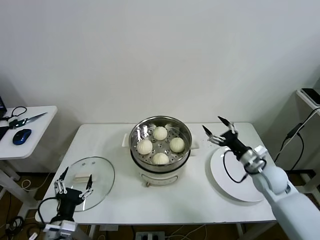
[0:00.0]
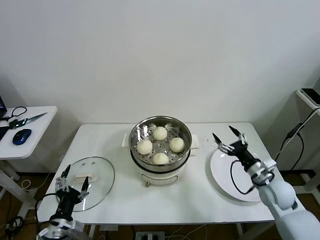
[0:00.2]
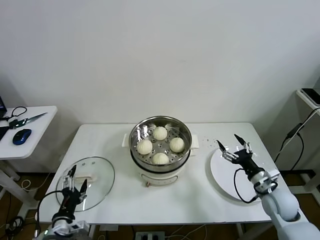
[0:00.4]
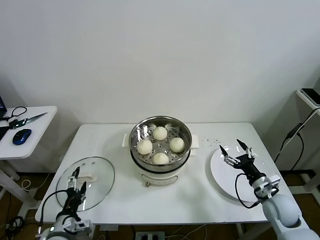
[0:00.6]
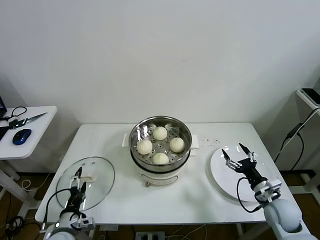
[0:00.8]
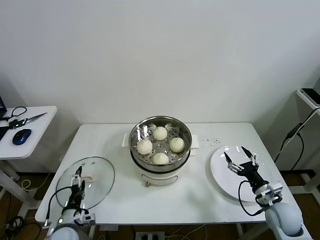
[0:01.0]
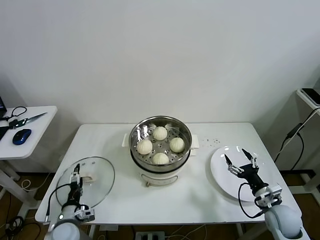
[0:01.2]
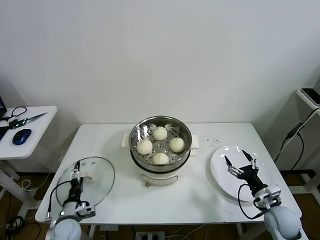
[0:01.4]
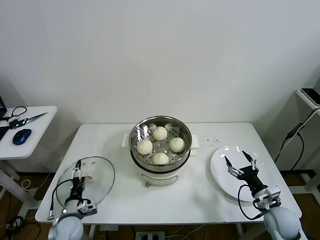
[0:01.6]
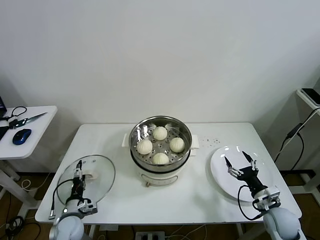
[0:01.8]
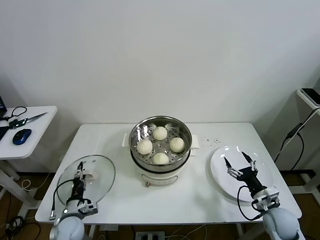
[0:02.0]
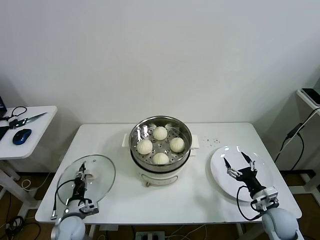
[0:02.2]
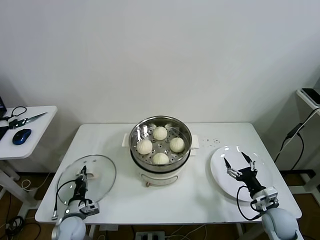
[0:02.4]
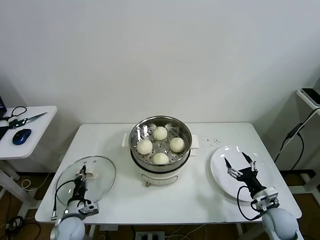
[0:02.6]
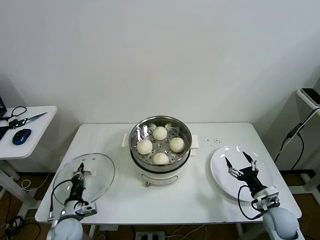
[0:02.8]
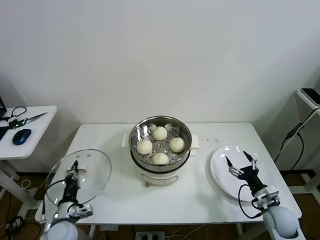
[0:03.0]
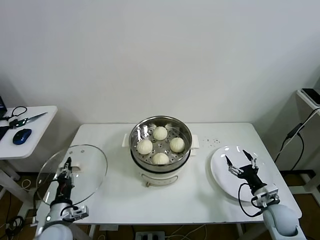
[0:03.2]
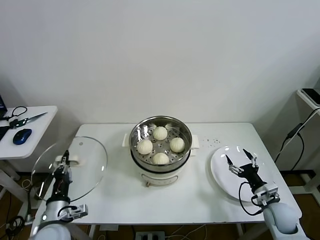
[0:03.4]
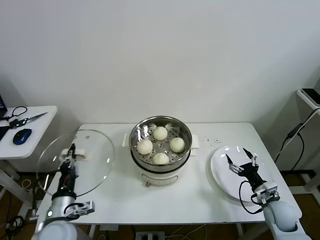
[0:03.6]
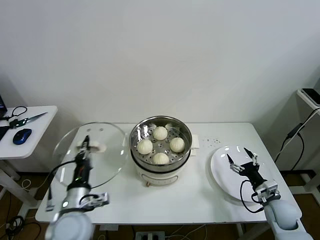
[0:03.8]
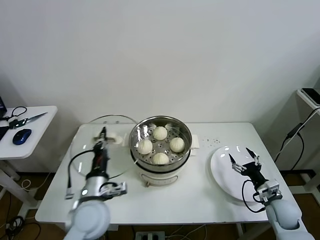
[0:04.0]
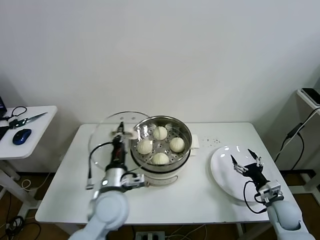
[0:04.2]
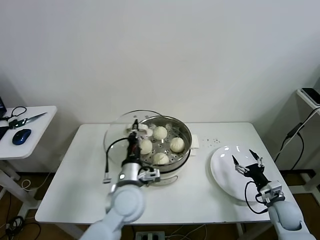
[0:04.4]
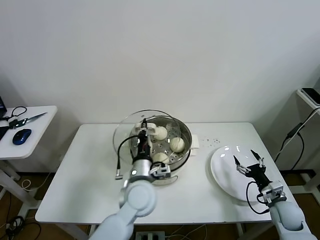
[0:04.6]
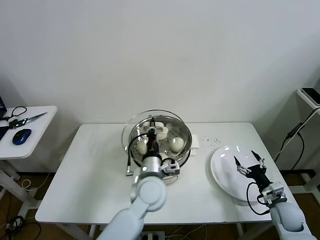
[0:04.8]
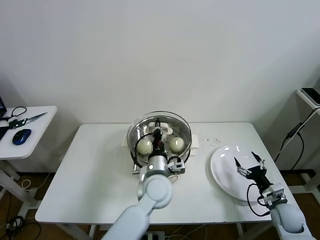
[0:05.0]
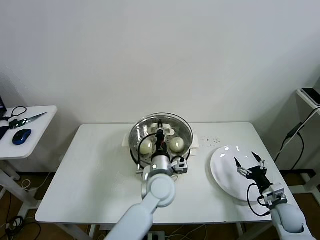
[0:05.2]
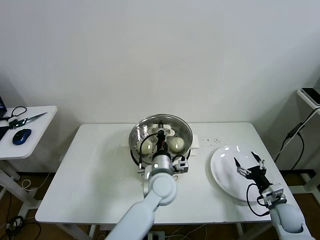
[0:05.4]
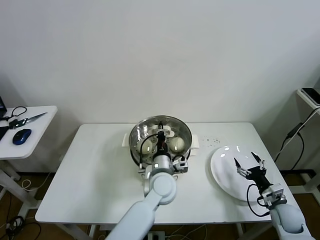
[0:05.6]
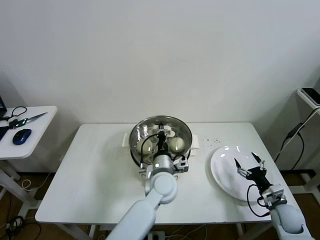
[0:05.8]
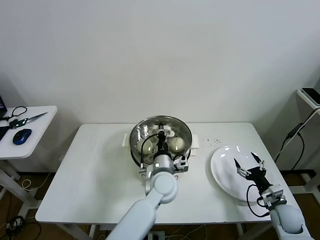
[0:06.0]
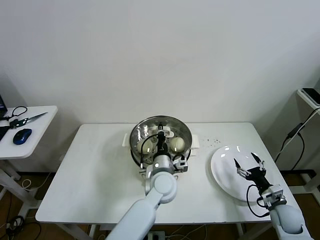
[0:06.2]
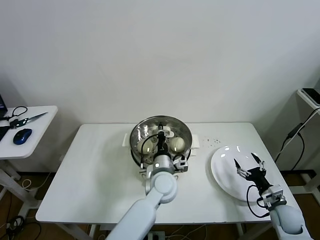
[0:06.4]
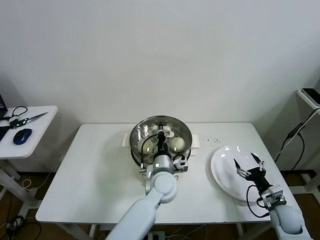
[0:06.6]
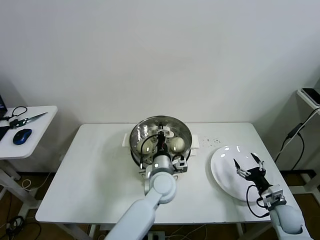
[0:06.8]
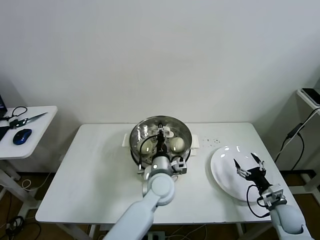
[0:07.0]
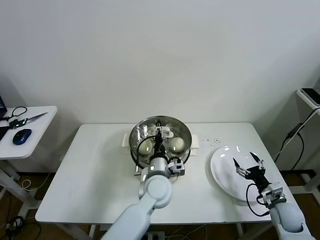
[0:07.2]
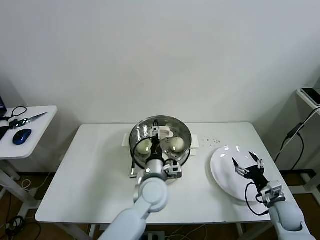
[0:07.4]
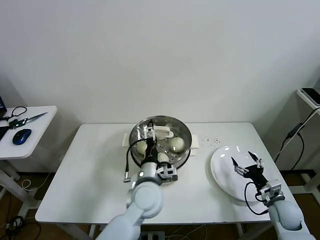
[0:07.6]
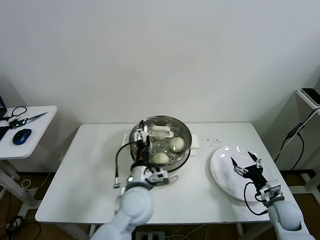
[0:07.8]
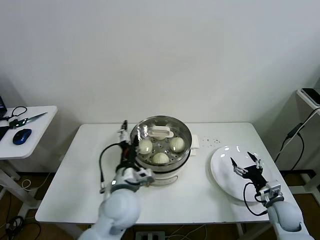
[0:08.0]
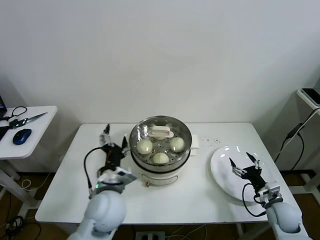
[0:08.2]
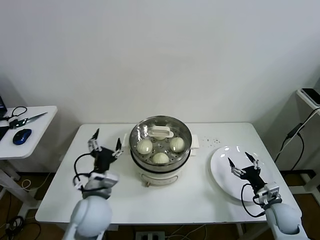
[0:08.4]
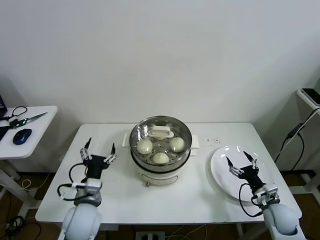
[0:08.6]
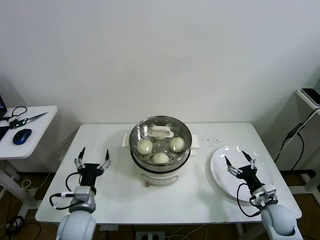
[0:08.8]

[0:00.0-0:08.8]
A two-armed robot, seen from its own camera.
Task of the whole recording: take steamed baozi put them in steamer then cover it.
Step, 0:00.0 to 0:02.4: Grasp the pot lid with left gripper.
Step, 0:02.6 to 0:07.2: Place the pot lid on the steamer with left gripper.
0:00.0 to 0:01.4: The left gripper goes about 15 cm downward and forward. Meanwhile the right gripper shifts some 15 cm backward and downward.
0:01.4 to 0:03.0: The left gripper closes up.
0:03.0 to 0:04.4: The left gripper shifts about 30 cm to the right and upward.
0:04.4 to 0:05.8: The left gripper moves to the right and forward, roughly 15 cm.
0:05.8 to 0:07.4: The left gripper opens its fingers.
0:07.4 to 0:08.8: The left gripper moves to the left, roughly 20 cm.
